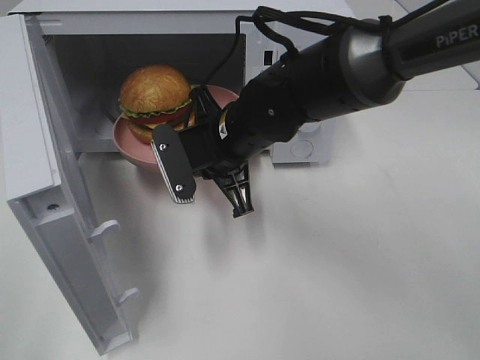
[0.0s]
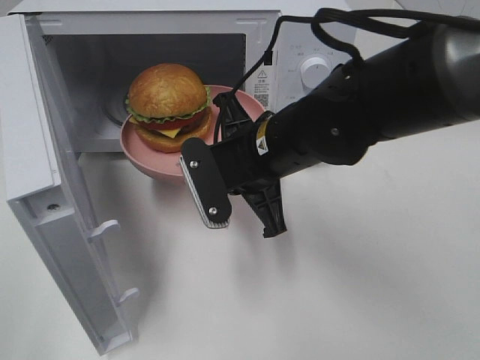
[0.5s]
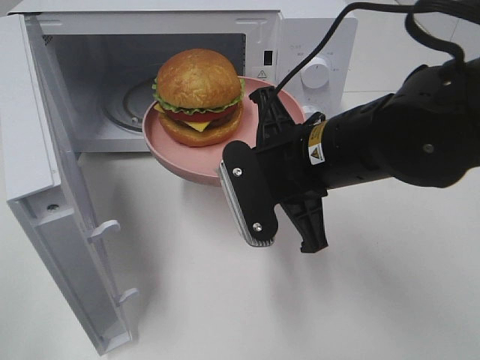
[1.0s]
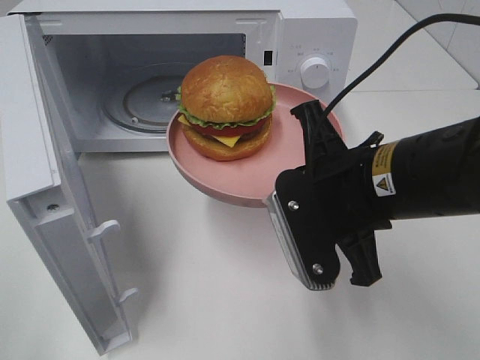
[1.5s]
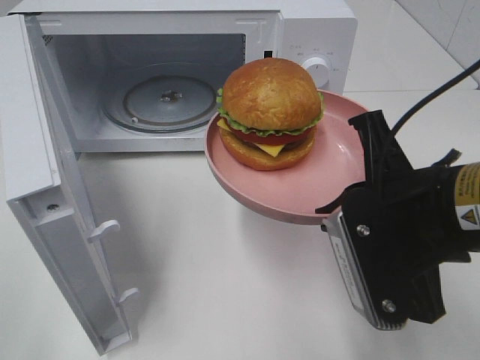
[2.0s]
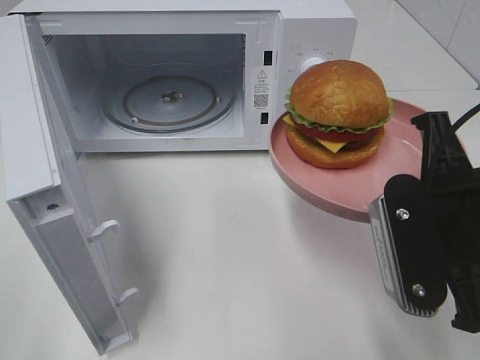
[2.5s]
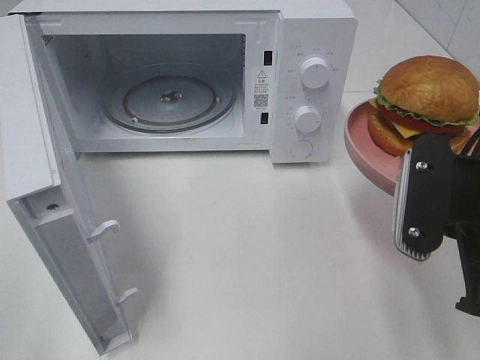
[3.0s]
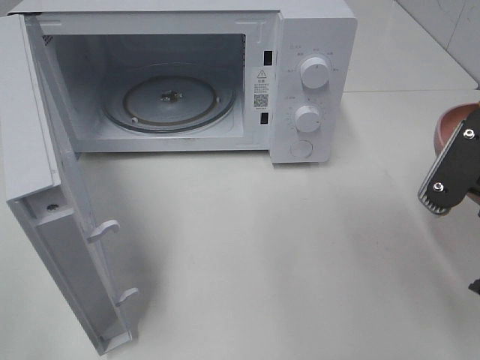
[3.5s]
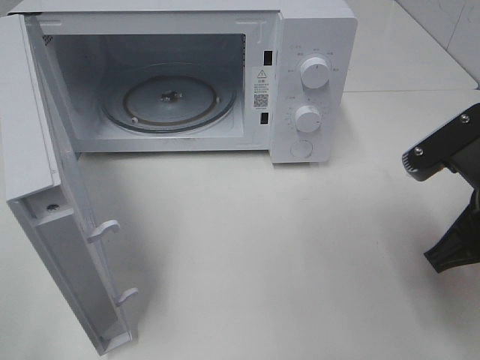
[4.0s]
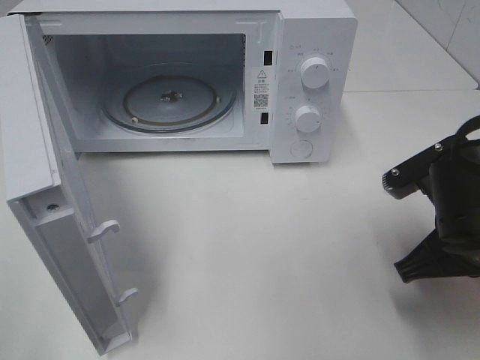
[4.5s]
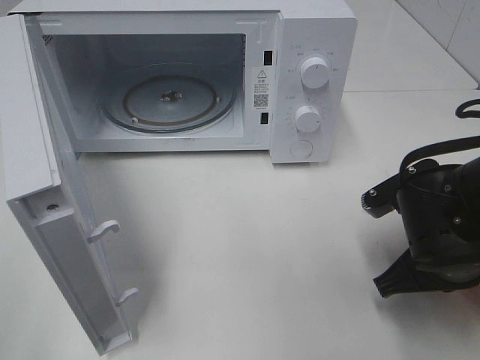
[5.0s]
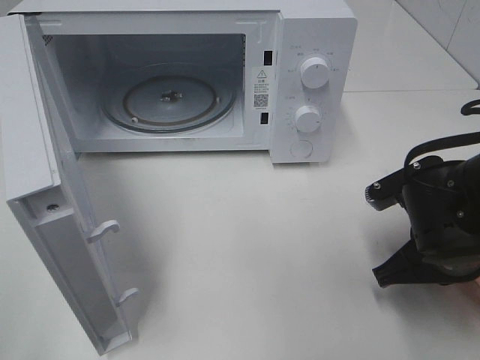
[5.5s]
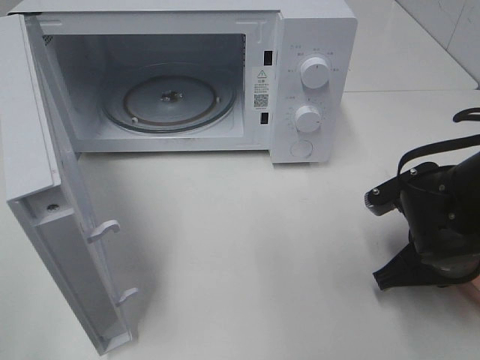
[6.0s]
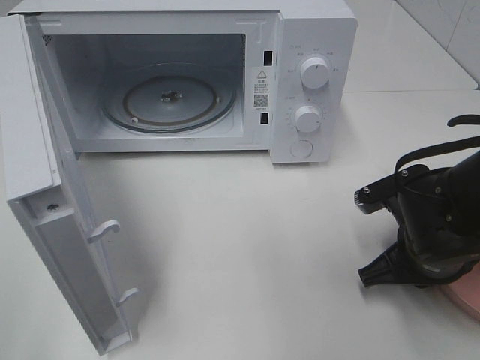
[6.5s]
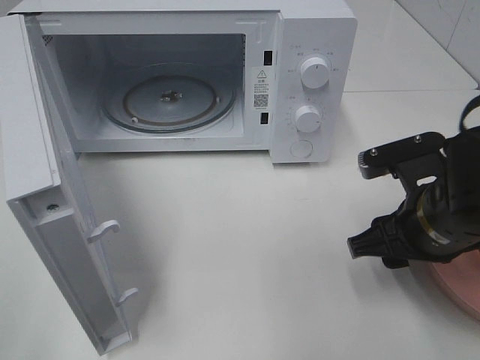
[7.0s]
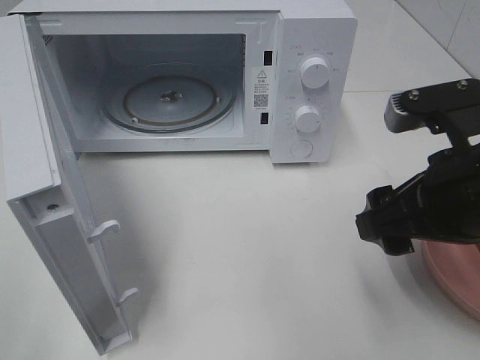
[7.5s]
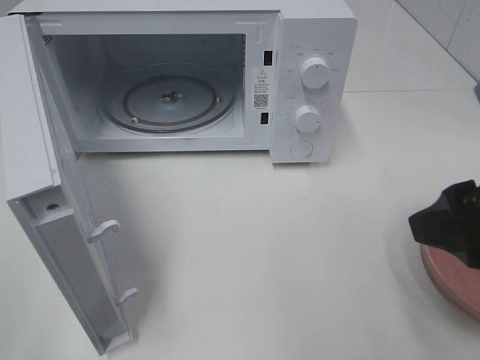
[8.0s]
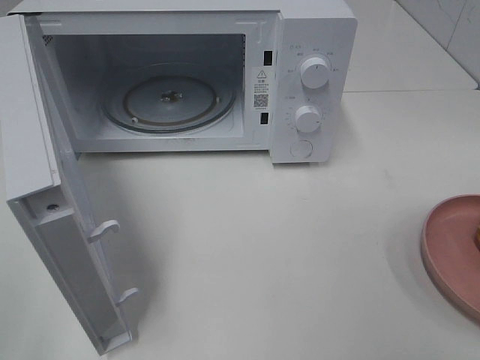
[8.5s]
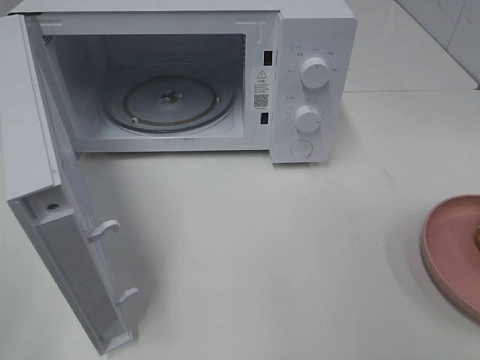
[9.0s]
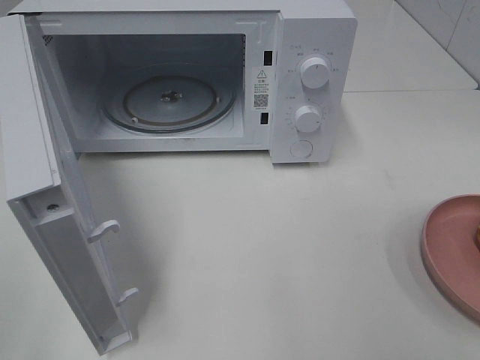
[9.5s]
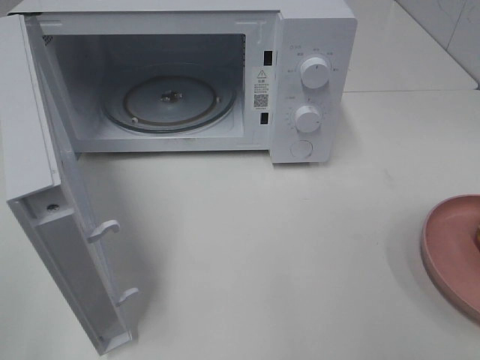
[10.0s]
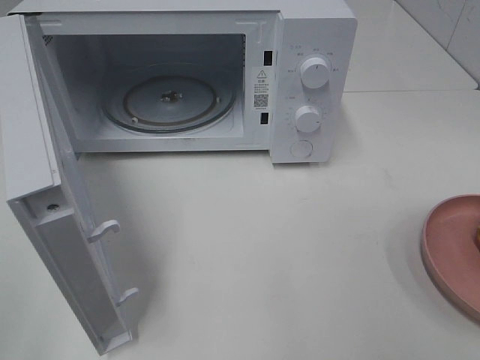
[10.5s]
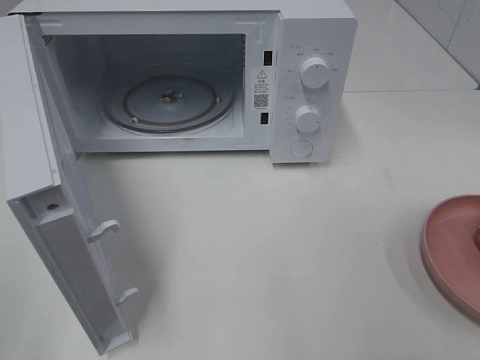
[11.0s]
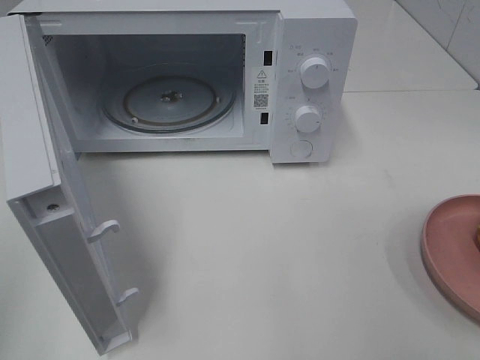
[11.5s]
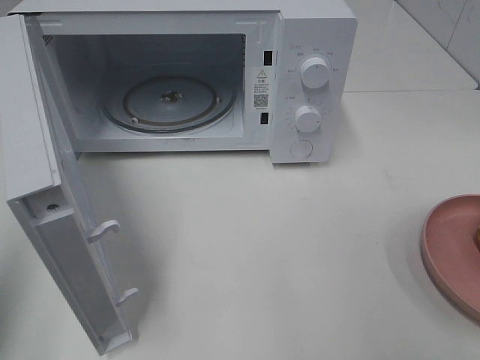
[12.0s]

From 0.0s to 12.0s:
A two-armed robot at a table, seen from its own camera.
Task of the whole recording: Heat the burger.
Step, from 0.0s to 6.5s: Right hand: place the plate on the table.
From 0.0s to 2.0s: The right gripper moves backward, to the right and upward, some 20 cm.
From 2.0s to 4.0s: The right gripper is displaced to the right by roughly 5 cm.
From 4.0s to 6.0s: The right gripper shifts about 10 cm downward.
From 6.0s to 8.0s: The right gripper moves upward and backward, roughly 20 cm, and opens its fingers.
From 8.0s to 10.0s: The right gripper moves backward and to the right, approximately 15 cm.
From 10.0s to 12.0s: The left gripper shifts roughly 10 cm forward, and closes its fingers.

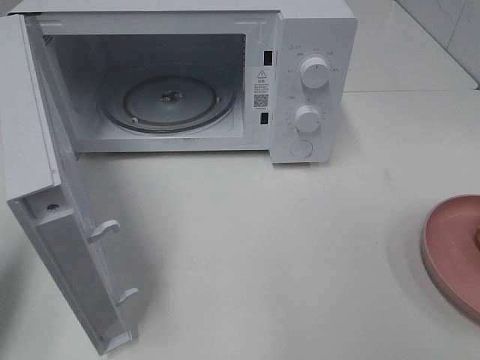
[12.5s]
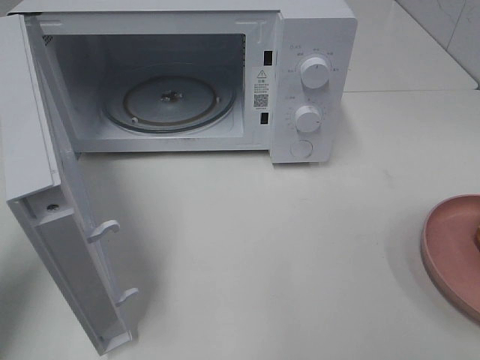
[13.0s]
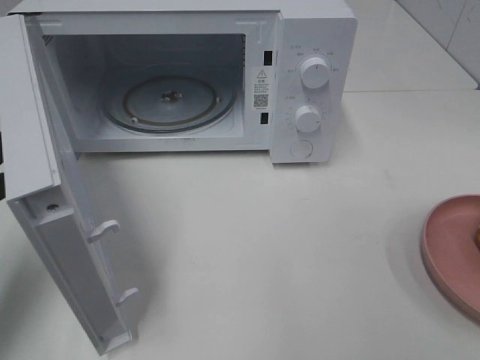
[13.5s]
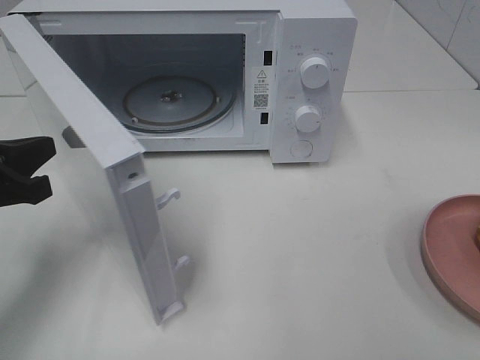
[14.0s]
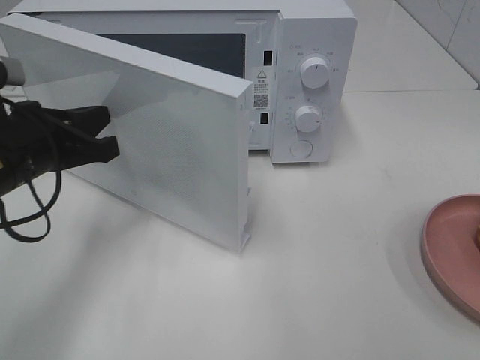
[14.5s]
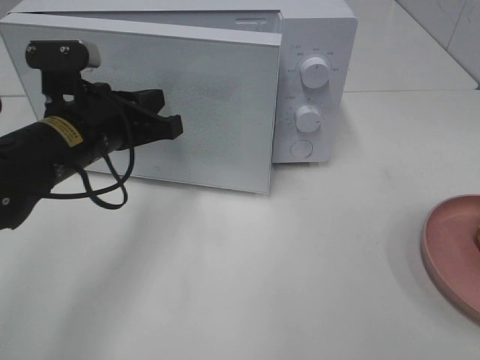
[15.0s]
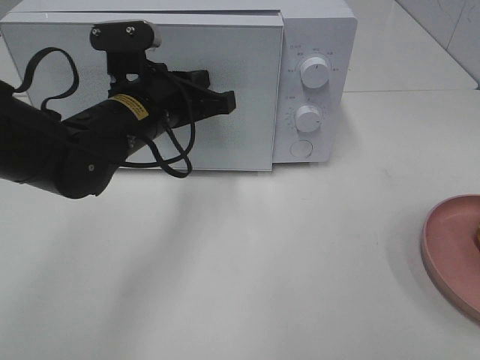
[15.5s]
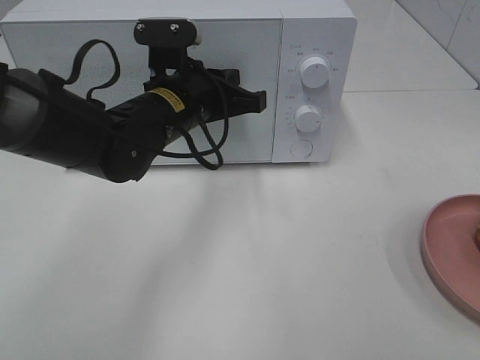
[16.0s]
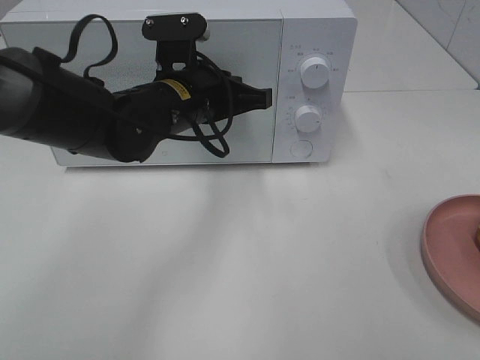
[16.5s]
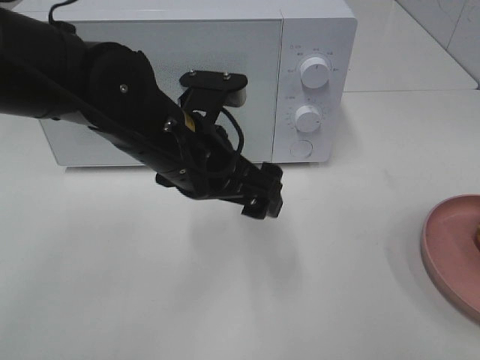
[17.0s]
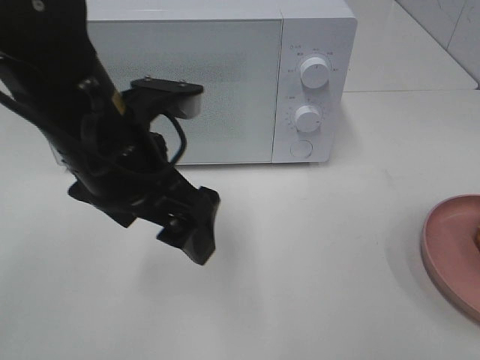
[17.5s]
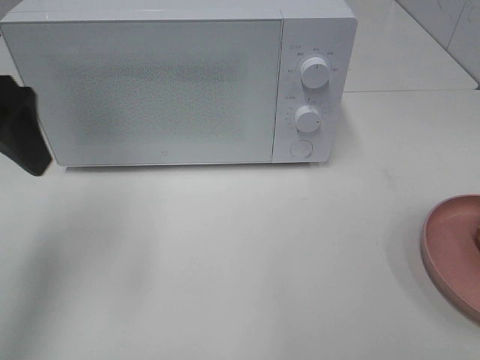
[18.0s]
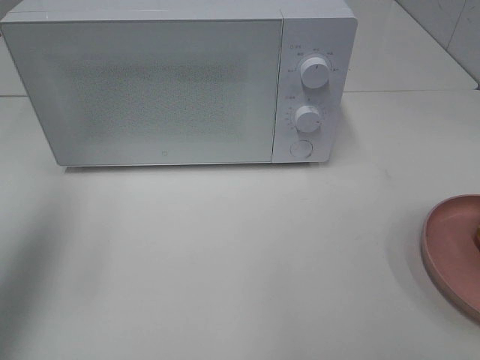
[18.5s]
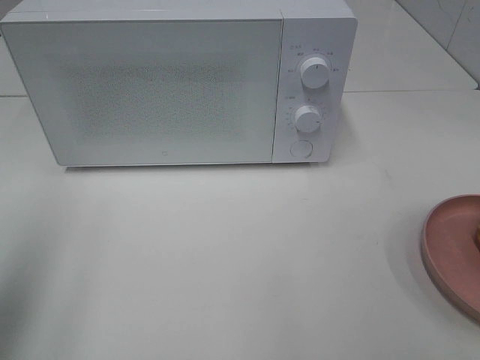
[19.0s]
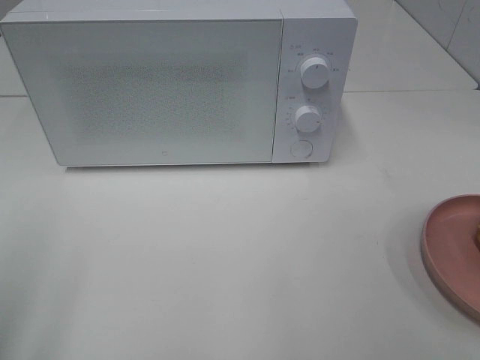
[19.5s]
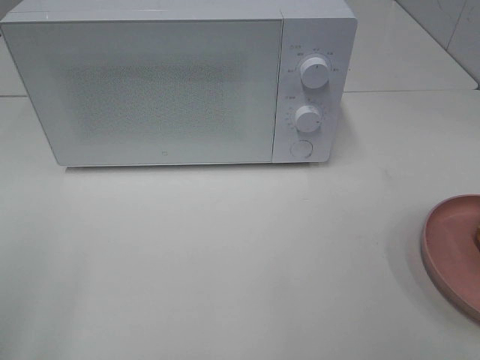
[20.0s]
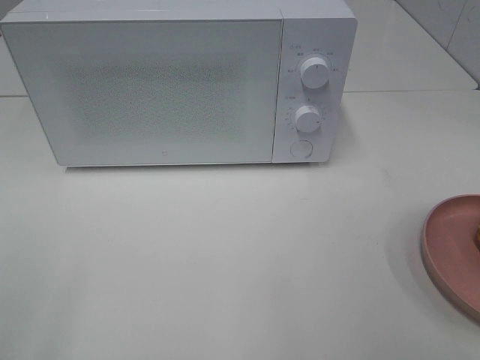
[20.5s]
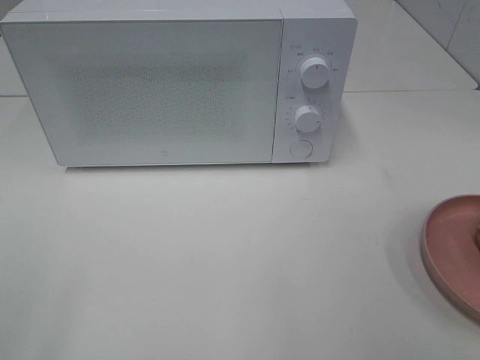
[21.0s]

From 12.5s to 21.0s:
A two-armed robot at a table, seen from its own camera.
Task of the whole recording: Heat the burger.
Step, from 12.5s to 16.5s: Left hand: close the microwave door.
From 12.5s to 14.5s: The left gripper heads to the right, forward and downward, covering approximately 15 cm.
From 14.5s to 16.5s: The left gripper is displaced to the right and forward by approximately 15 cm.
From 16.5s to 19.0s: The left gripper shifts about 35 cm to the left, backward and upward, and opens.
From 19.0s to 21.0s: The left gripper travels backward by roughly 15 cm.

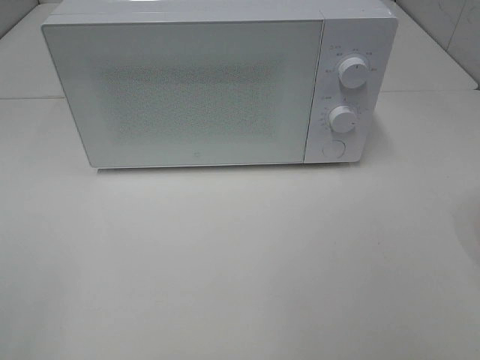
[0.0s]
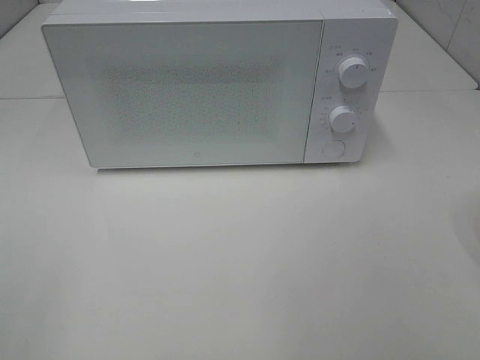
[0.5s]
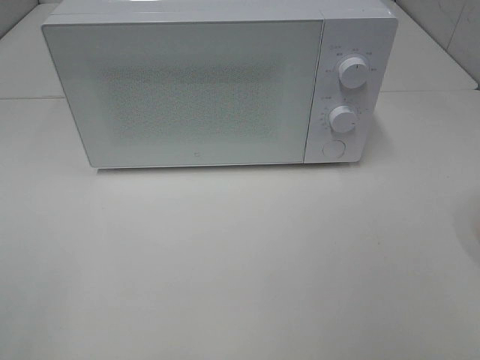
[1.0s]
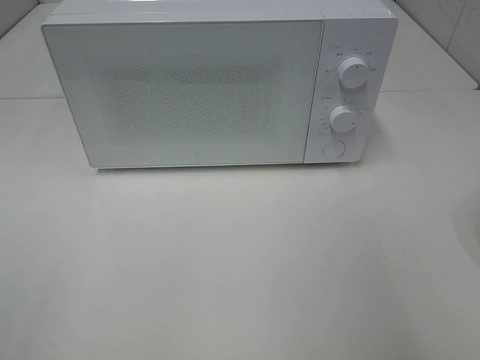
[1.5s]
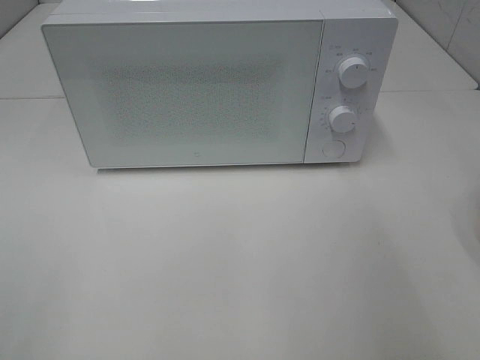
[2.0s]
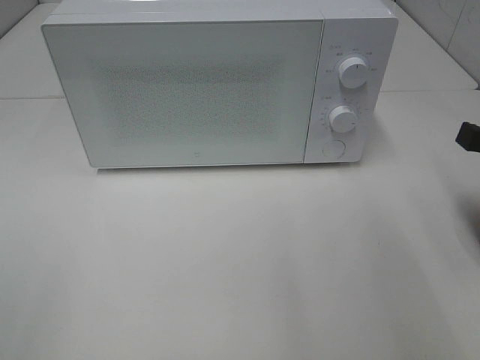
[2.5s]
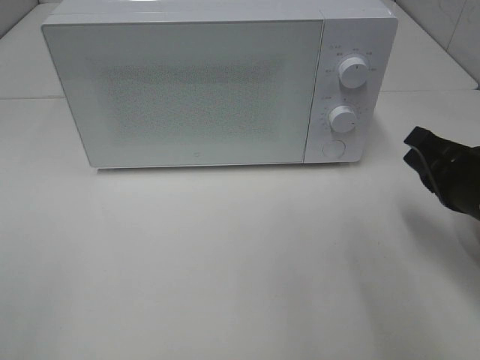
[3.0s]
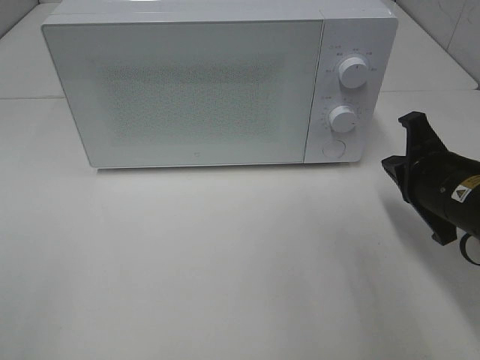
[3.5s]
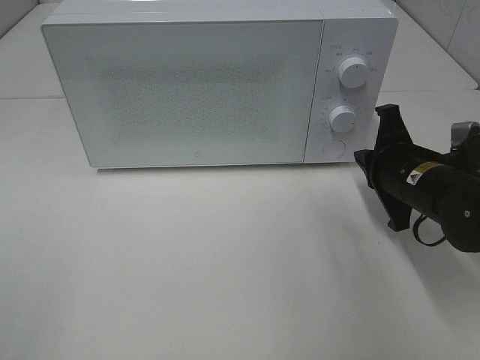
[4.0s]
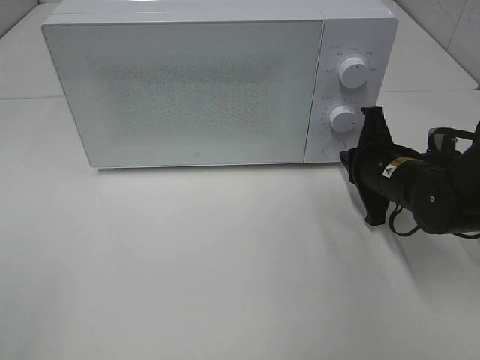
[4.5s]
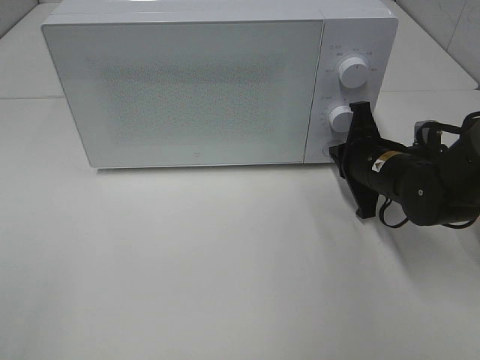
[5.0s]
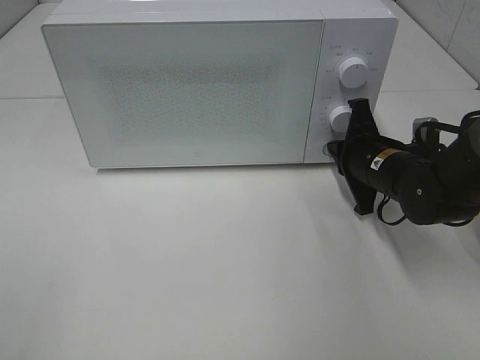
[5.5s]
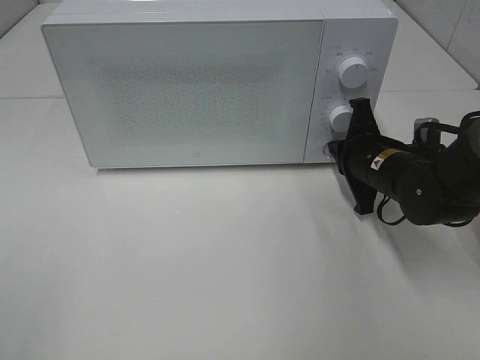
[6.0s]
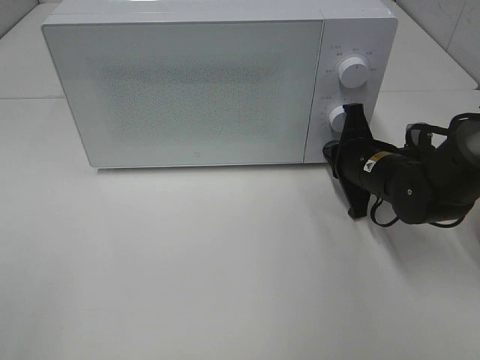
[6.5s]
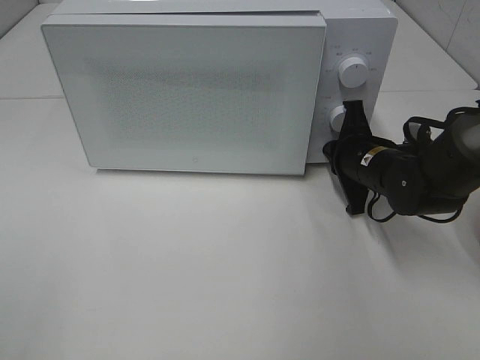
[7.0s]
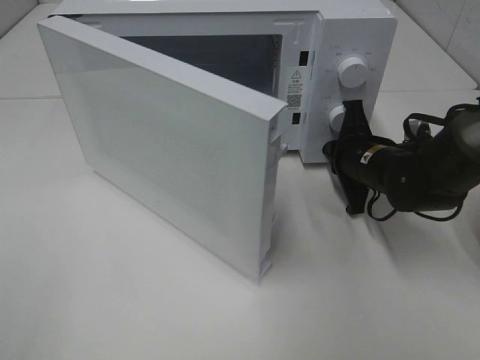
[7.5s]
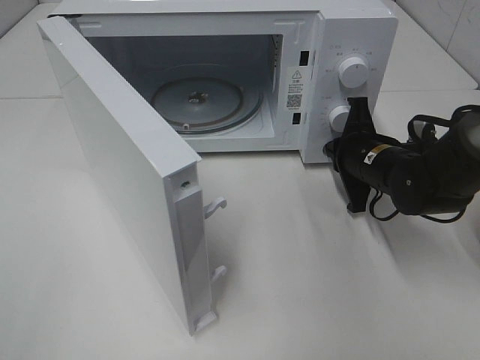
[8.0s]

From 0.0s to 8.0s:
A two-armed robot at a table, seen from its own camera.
Task of the whole recording: Heat the burger.
From 2.0s to 4.0s: The right gripper shifts some 20 cm downward, forward and to the left.
From 4.0s to 6.0s: The right gripper shifts by some 5 cm.
